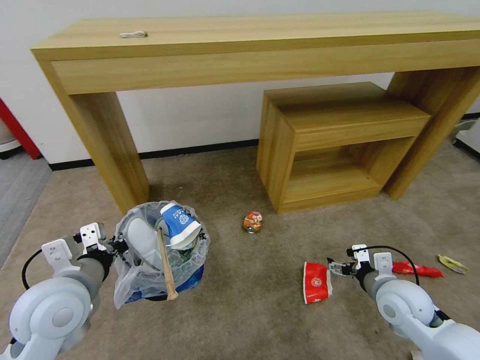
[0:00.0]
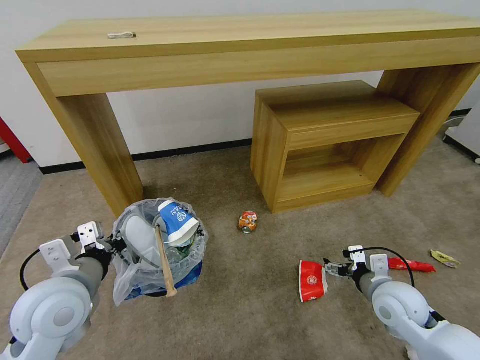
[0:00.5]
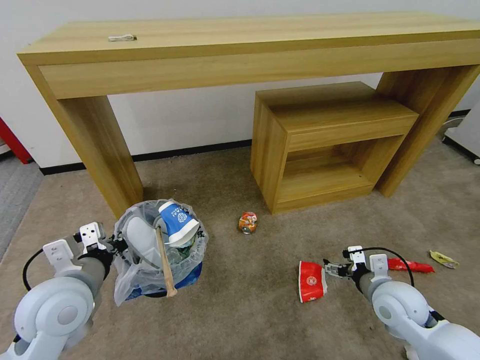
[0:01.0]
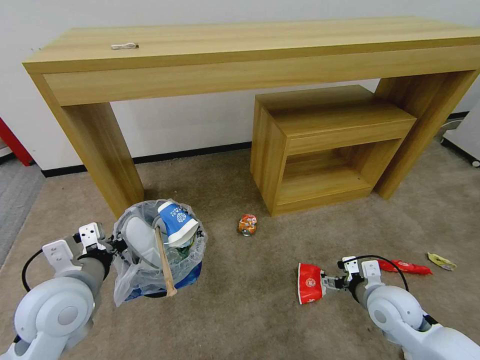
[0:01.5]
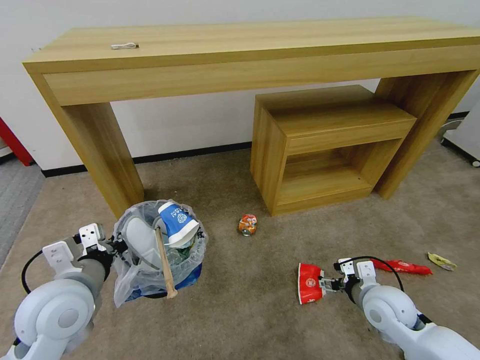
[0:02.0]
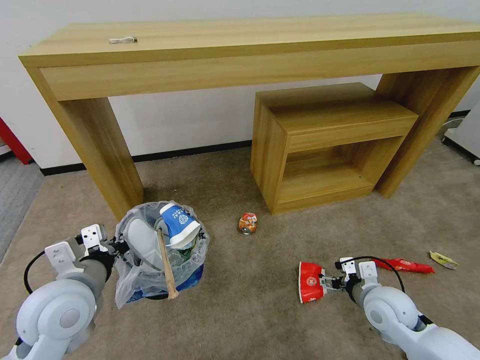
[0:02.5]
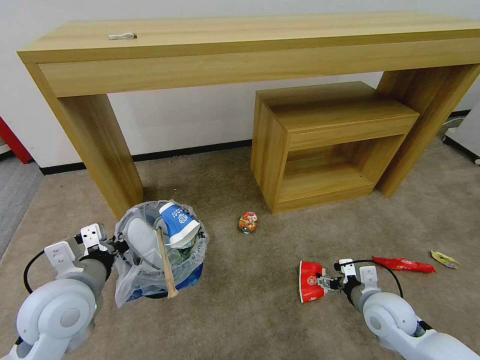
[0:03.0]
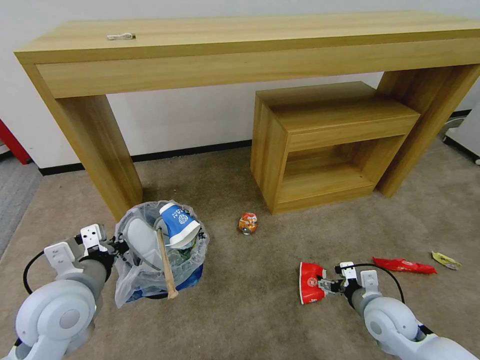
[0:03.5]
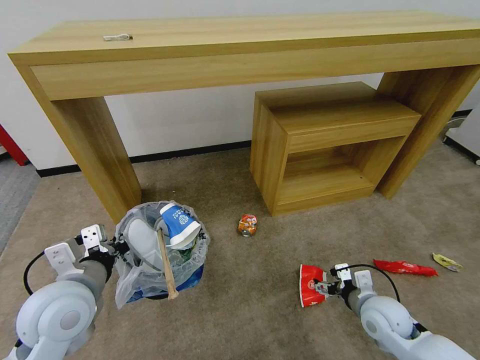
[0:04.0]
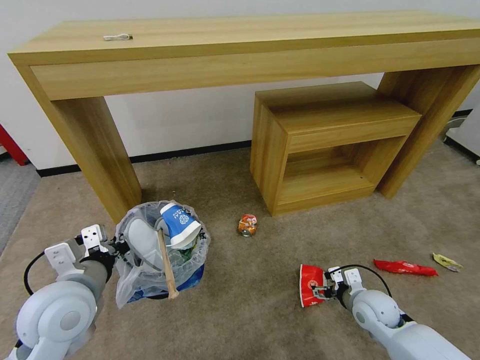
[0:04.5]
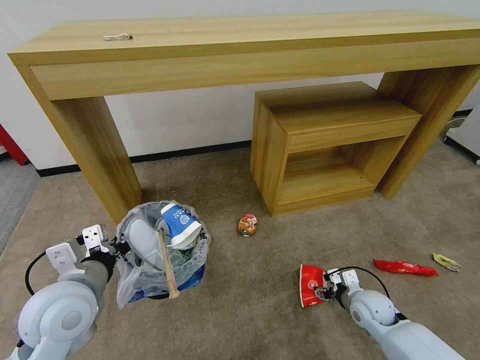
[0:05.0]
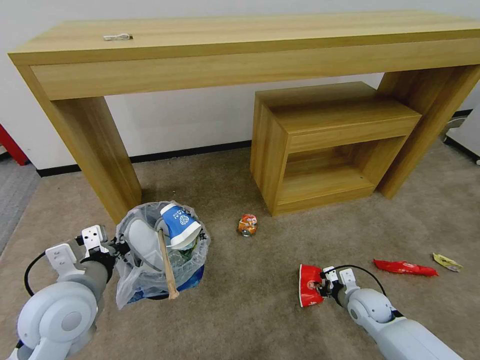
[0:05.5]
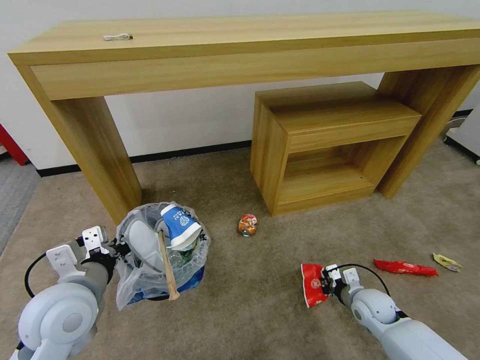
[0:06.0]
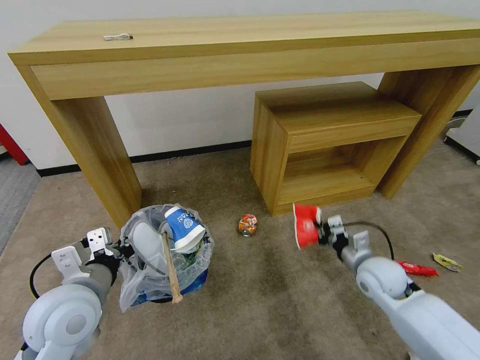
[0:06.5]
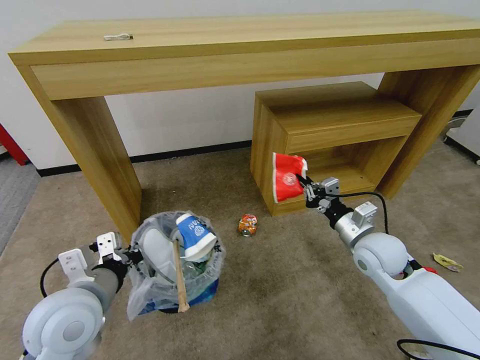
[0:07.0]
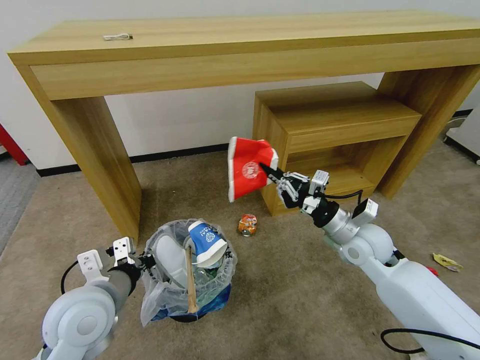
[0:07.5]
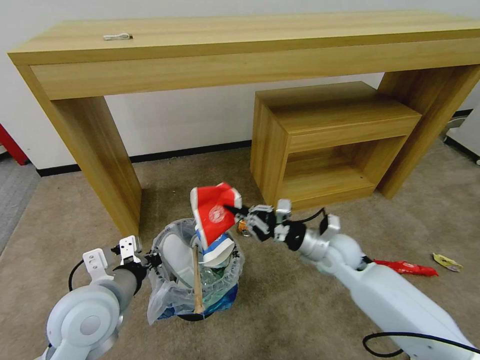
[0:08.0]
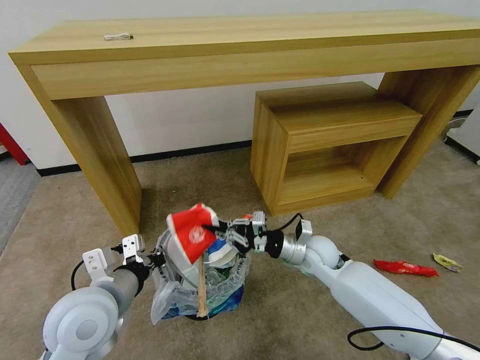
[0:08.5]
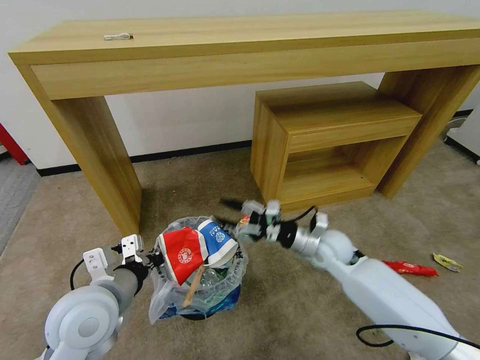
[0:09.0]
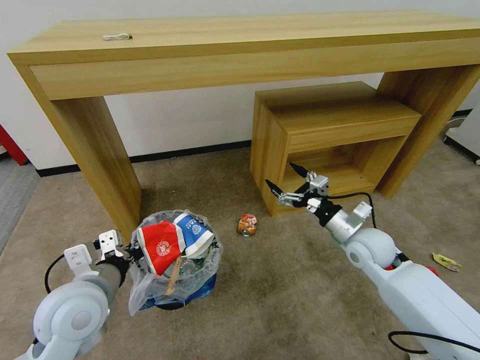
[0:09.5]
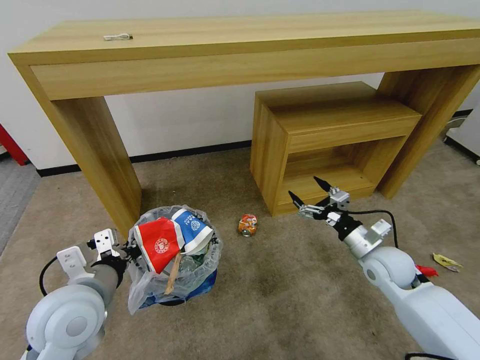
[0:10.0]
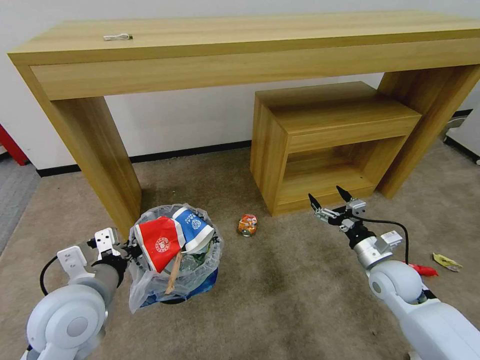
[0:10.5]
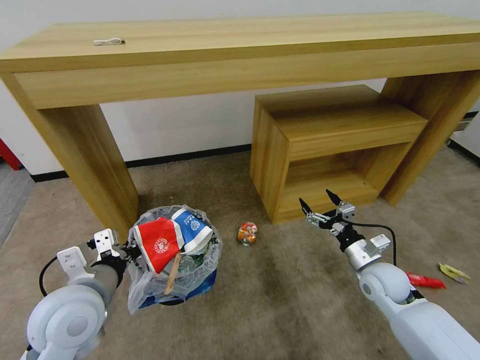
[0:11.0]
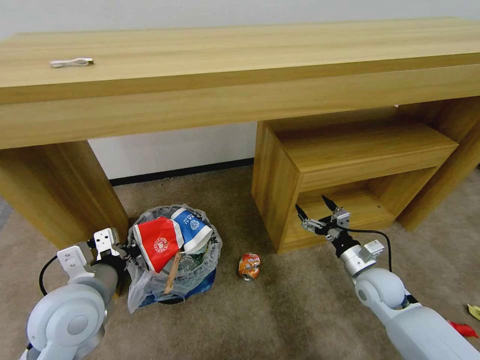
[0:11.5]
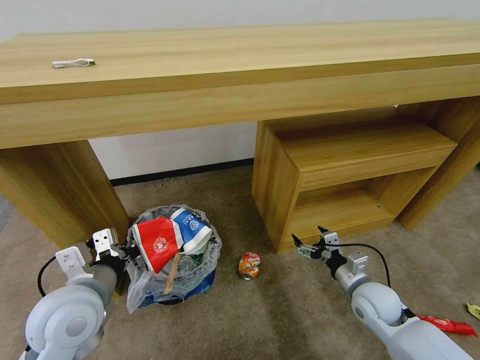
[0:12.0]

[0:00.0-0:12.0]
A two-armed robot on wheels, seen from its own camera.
Task of the whole recording: Pick up the trash bin and place the garbage on the floor into it.
2.0 to 4.0 s: The grippers stay close to where they were, moving slightly.
4.0 to 6.0 s: The right gripper is displaced downward by roughly 5 cm, and closes up.
6.0 to 8.0 s: The right gripper is displaced upward, to the left and forward by approximately 20 cm.
8.0 to 10.0 s: The right gripper moves to the right, some 10 cm, and opens up.
10.0 to 12.0 s: The right gripper shifts about 10 cm downward and backward.

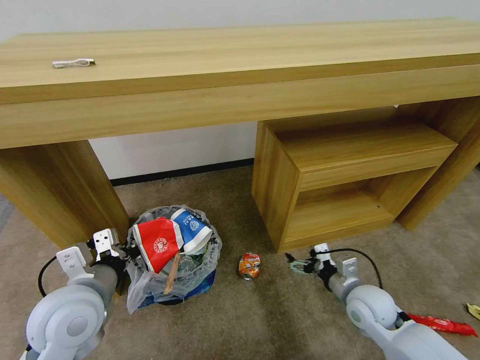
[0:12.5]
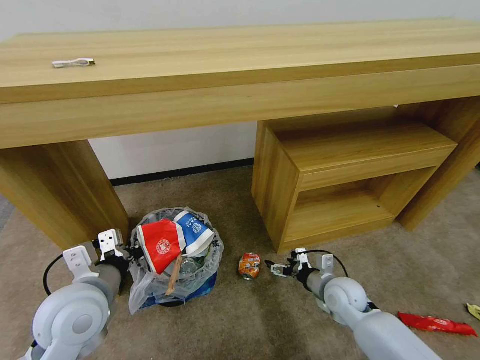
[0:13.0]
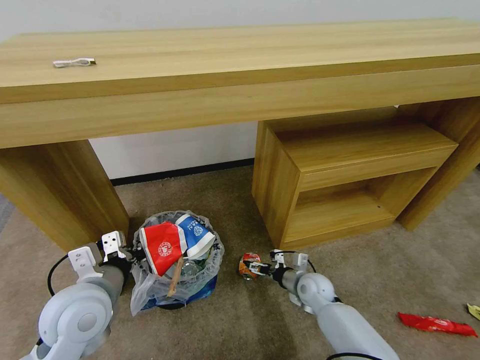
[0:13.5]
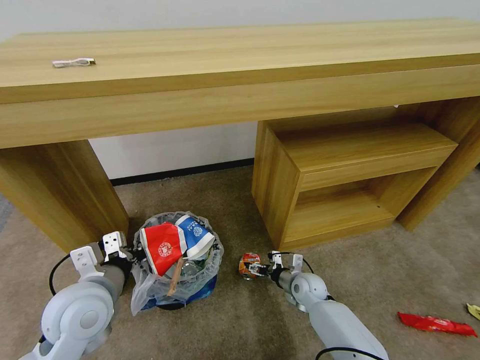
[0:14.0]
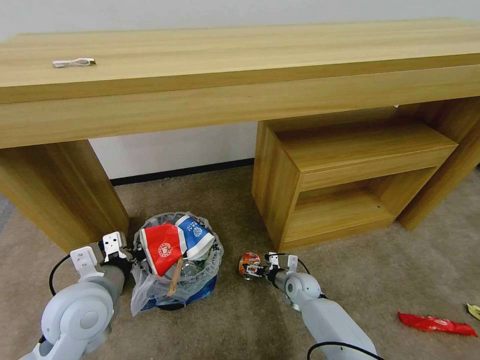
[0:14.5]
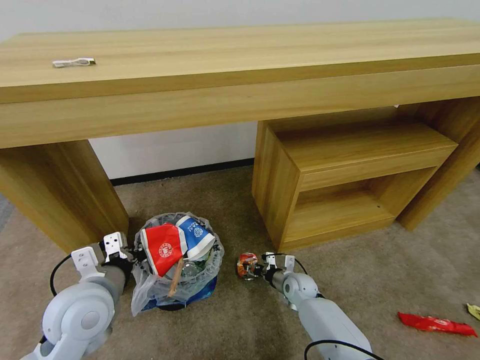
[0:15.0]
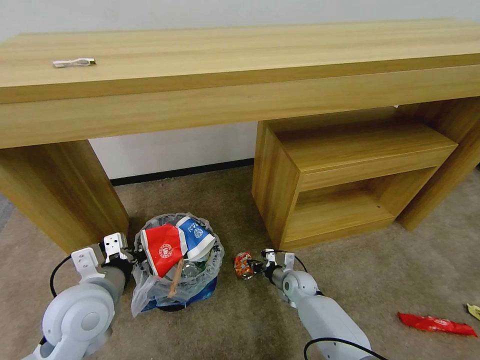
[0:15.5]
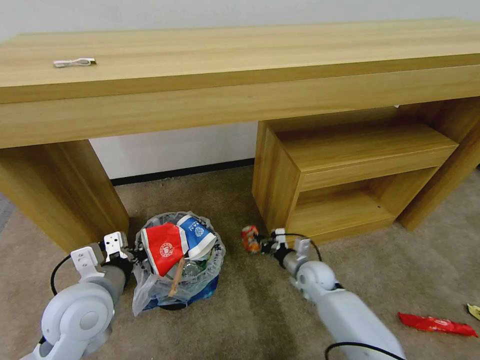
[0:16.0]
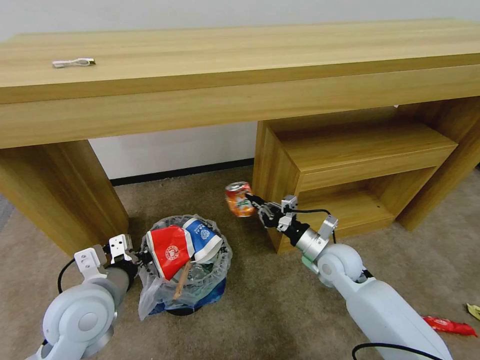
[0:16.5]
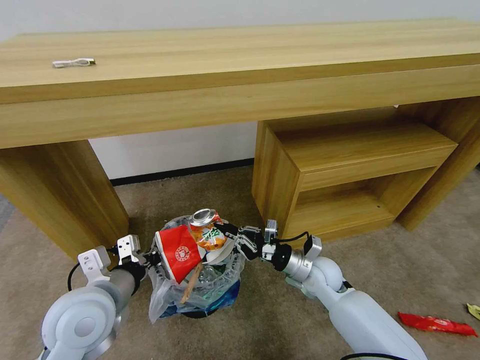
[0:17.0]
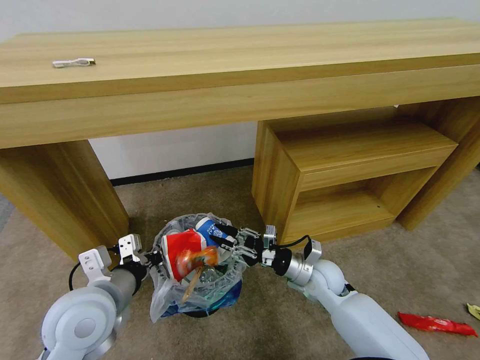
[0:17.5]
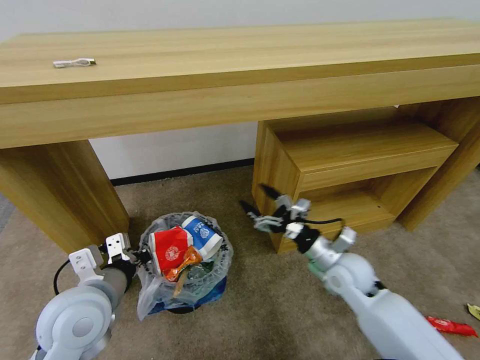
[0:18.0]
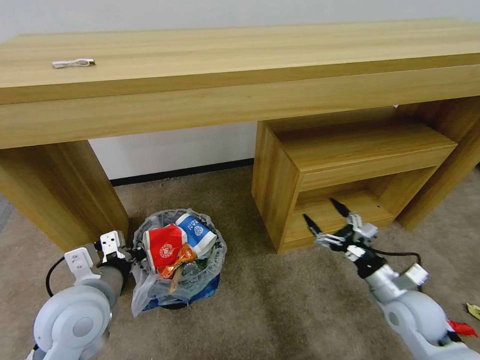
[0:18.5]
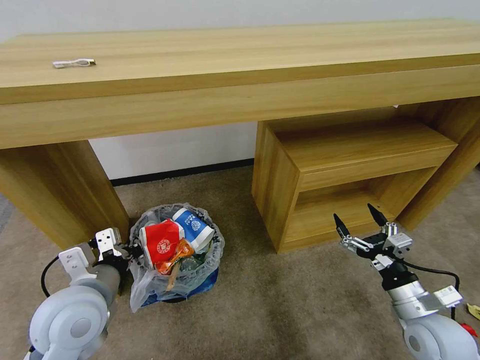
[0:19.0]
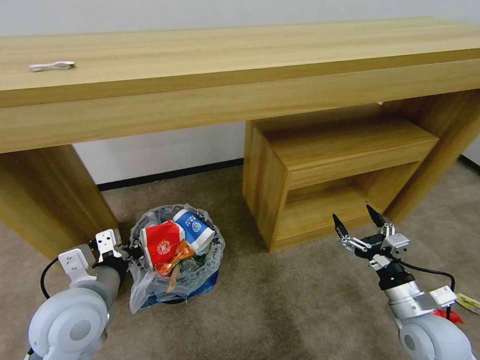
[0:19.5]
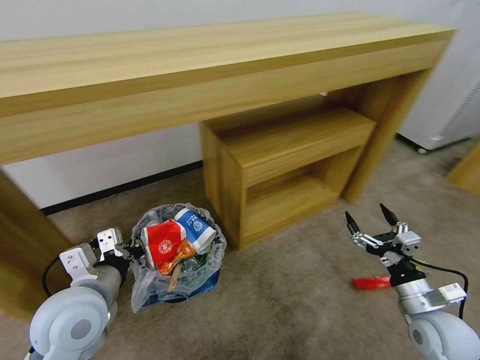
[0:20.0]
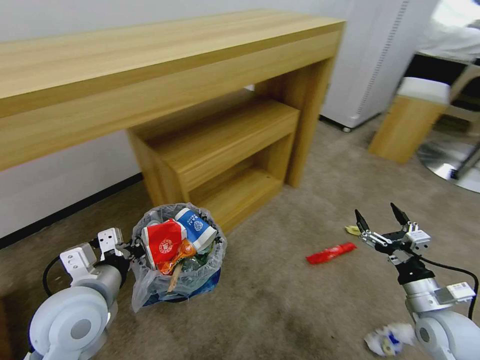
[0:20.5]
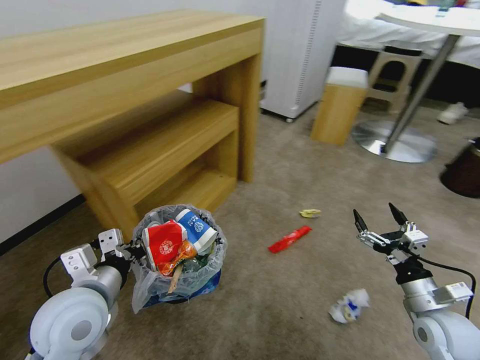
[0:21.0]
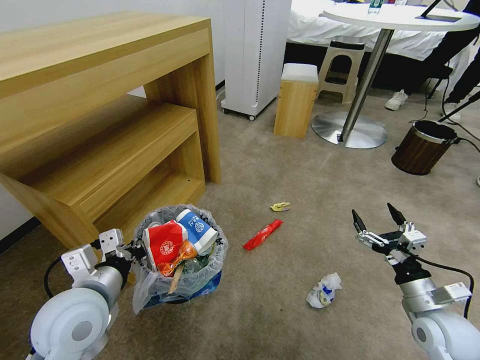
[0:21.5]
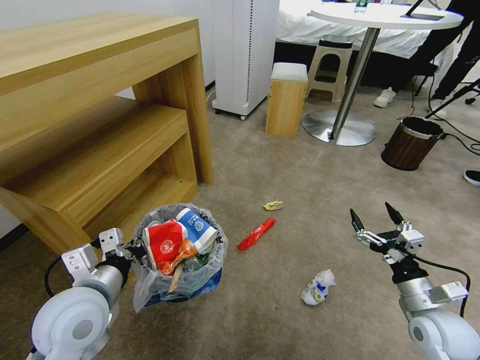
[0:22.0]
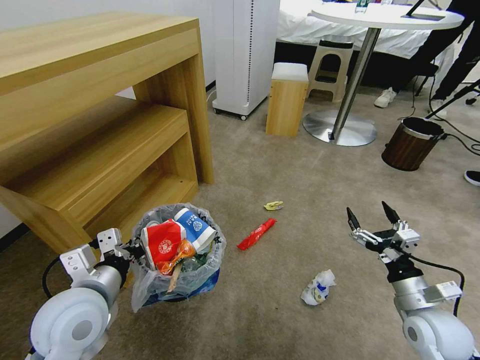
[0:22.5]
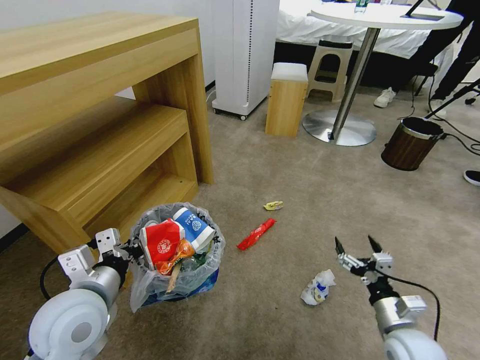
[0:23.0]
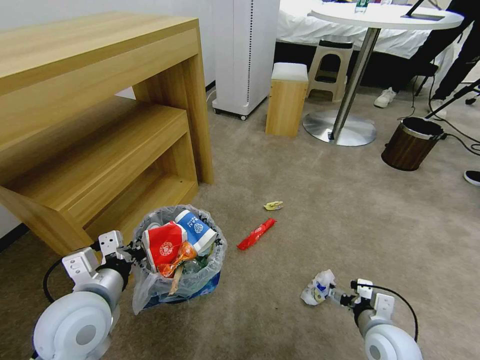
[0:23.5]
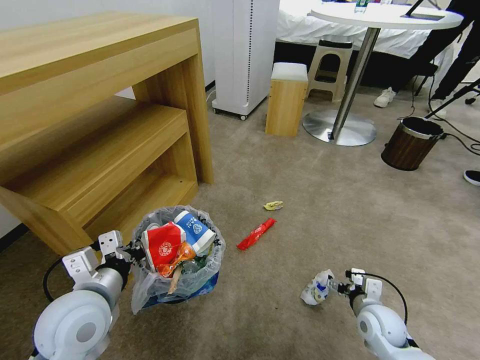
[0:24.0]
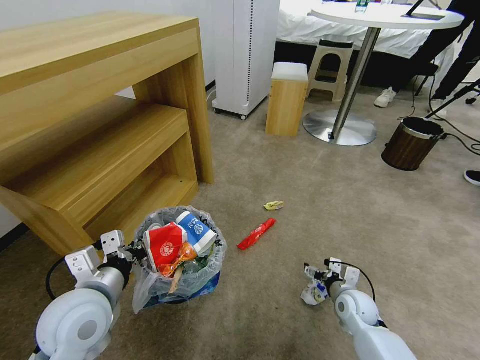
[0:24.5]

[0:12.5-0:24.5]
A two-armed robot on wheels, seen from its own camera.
Task of the whole recording: Pick up the trash bin and place the garbage on the floor into it.
12.5 to 14.5 s: The right gripper travels downward, to the left and forward by about 20 cm.
14.5 to 16.5 s: The right gripper travels upward by about 20 cm, and closes up.
16.5 to 18.5 s: The right gripper shifts about 15 cm to the right and backward, and opens up.
18.5 to 20.5 s: The right gripper changes place by about 5 cm.
22.5 to 24.5 s: The right gripper moves downward, forward and to the left, roughly 20 cm.

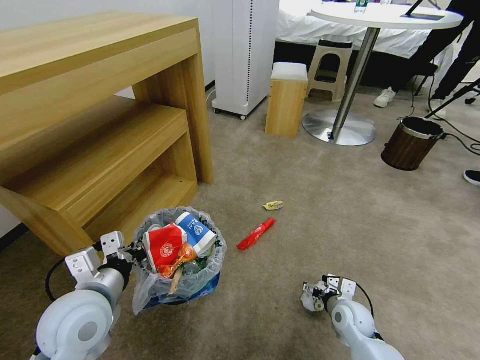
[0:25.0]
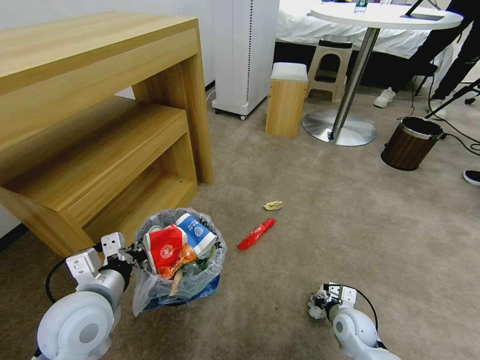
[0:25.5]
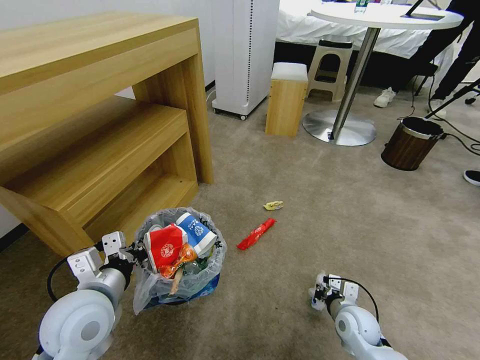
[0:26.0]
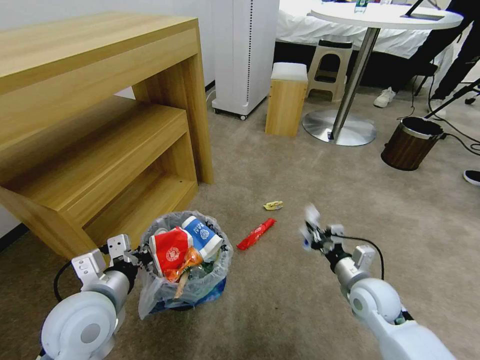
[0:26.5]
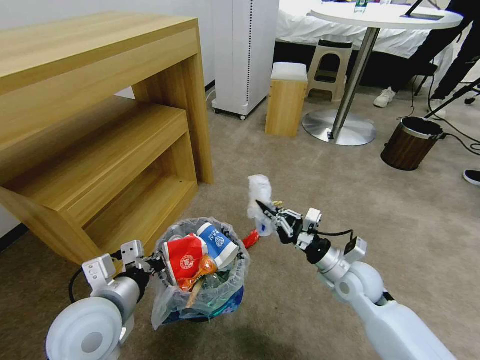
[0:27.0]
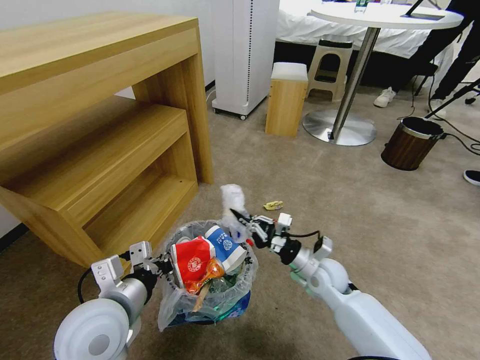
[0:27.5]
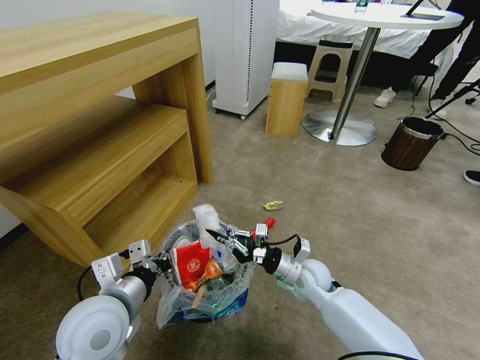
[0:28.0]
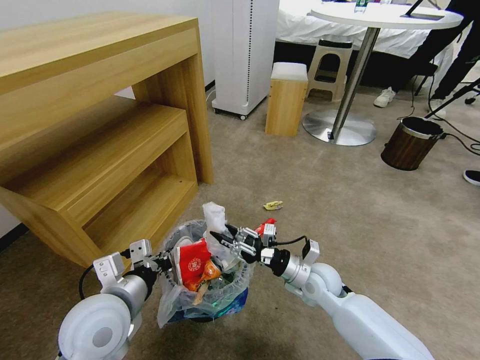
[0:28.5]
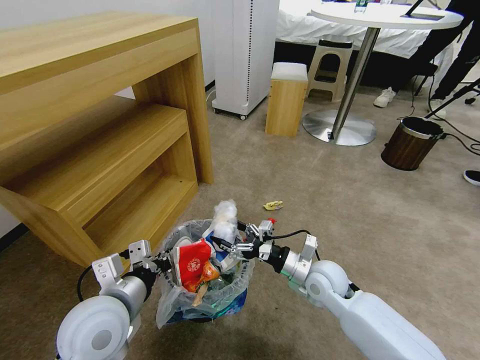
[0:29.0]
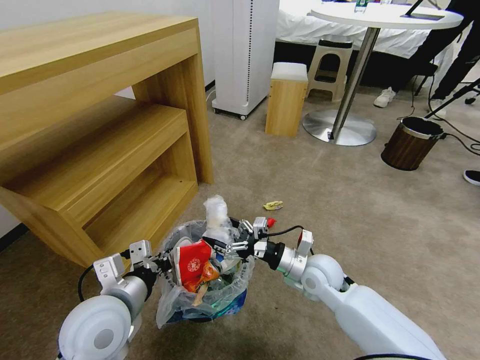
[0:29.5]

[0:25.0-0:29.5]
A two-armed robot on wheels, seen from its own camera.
Task of the whole recording: Pick up the trash bin and place the garbage on the floor into it.
25.0 to 27.0 s: The right gripper goes roughly 15 cm upward, and closes its fingers.
27.0 to 29.5 s: The right gripper is displaced to the left by about 10 cm, and opens.
